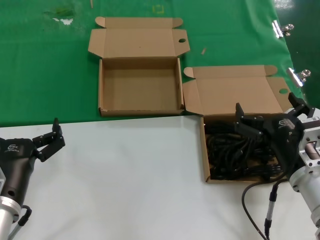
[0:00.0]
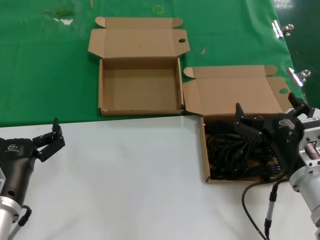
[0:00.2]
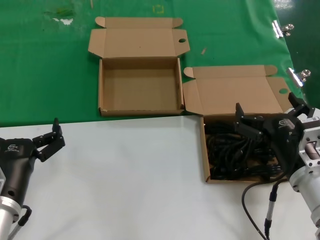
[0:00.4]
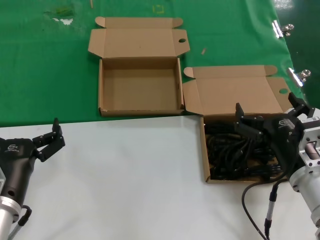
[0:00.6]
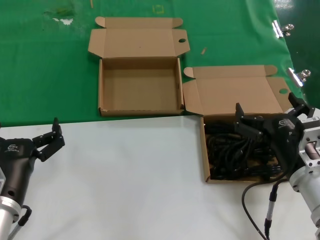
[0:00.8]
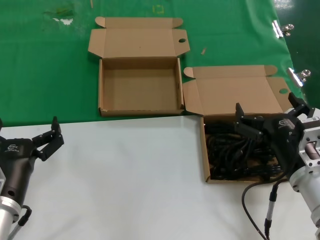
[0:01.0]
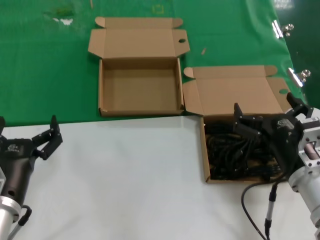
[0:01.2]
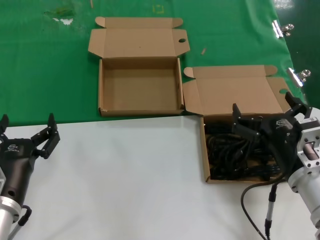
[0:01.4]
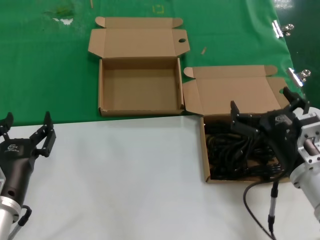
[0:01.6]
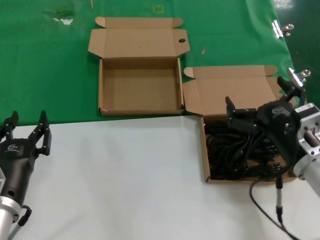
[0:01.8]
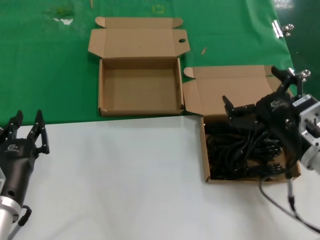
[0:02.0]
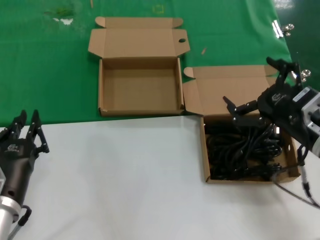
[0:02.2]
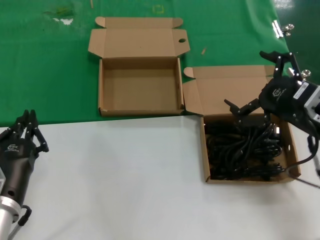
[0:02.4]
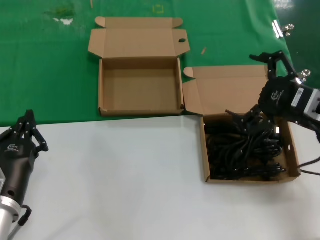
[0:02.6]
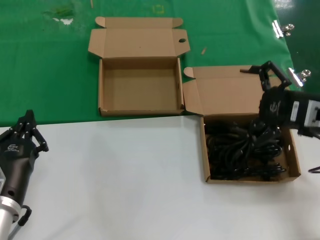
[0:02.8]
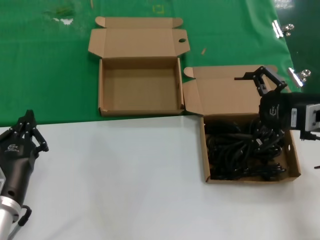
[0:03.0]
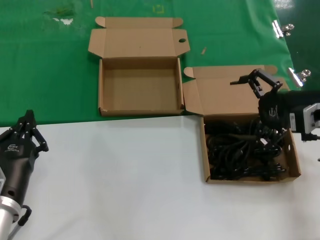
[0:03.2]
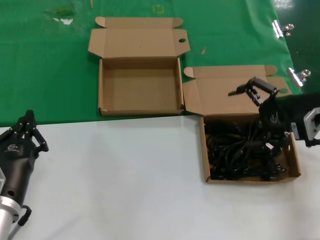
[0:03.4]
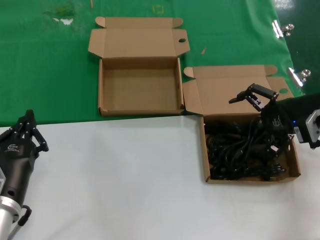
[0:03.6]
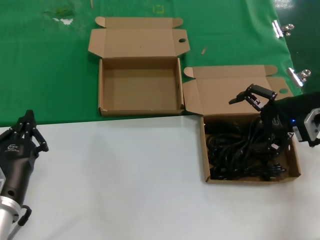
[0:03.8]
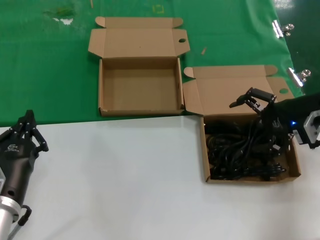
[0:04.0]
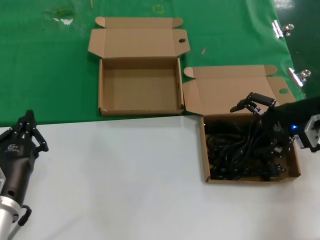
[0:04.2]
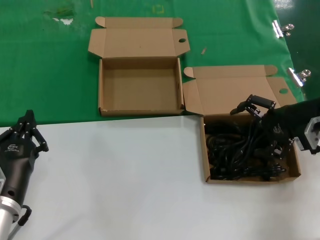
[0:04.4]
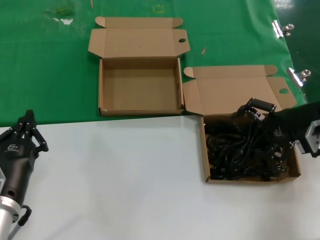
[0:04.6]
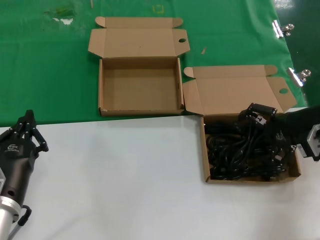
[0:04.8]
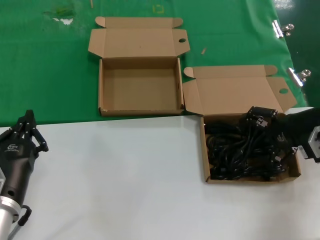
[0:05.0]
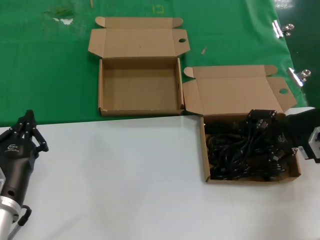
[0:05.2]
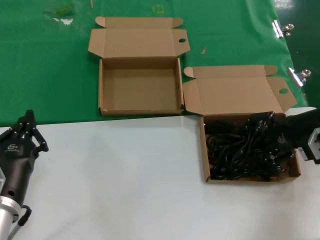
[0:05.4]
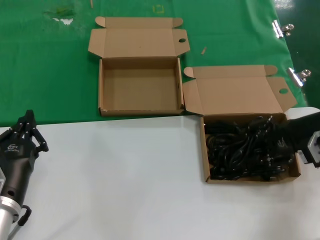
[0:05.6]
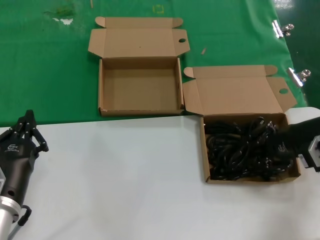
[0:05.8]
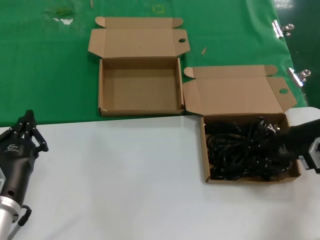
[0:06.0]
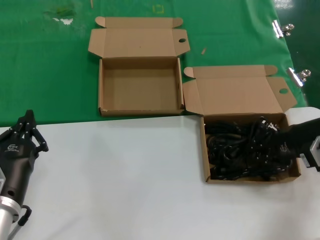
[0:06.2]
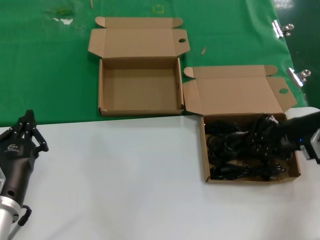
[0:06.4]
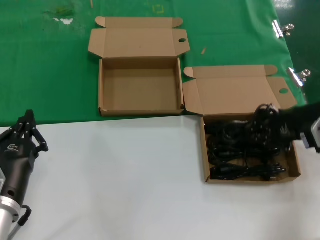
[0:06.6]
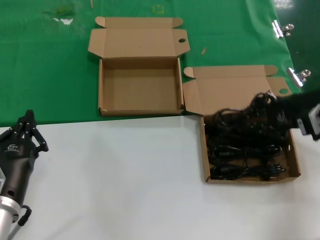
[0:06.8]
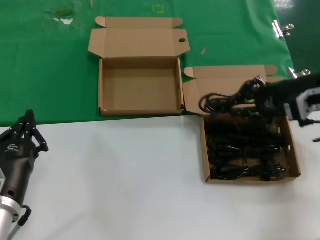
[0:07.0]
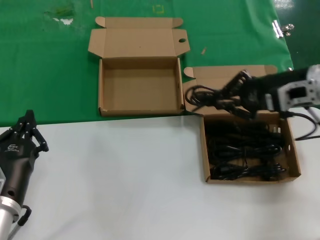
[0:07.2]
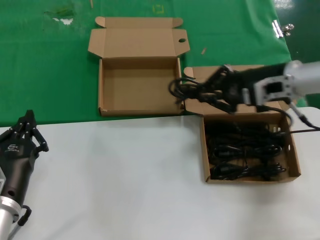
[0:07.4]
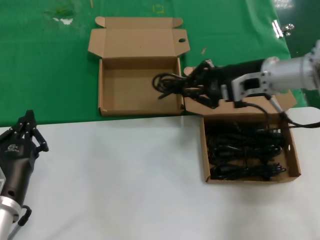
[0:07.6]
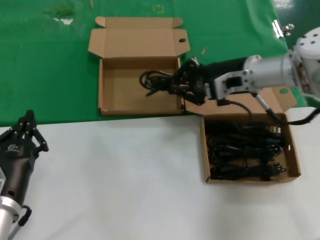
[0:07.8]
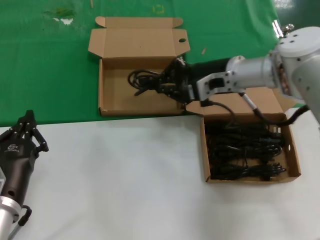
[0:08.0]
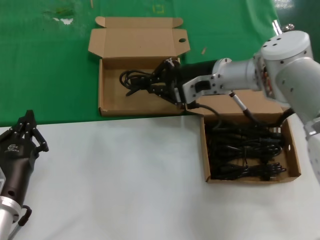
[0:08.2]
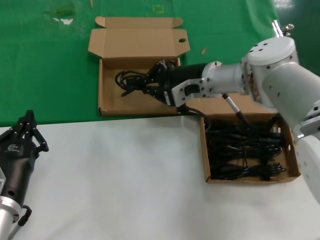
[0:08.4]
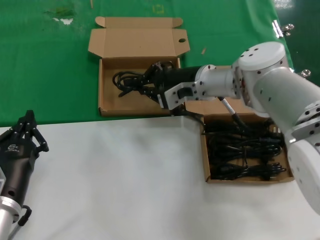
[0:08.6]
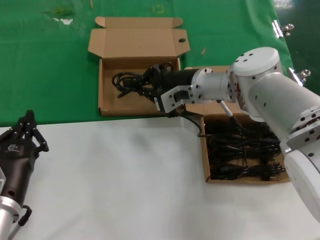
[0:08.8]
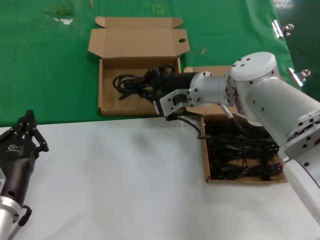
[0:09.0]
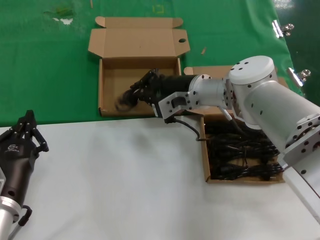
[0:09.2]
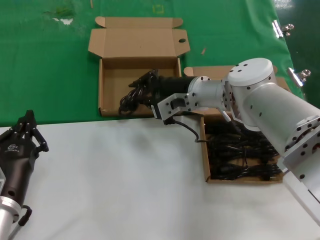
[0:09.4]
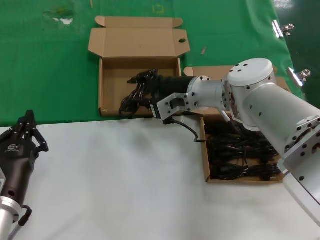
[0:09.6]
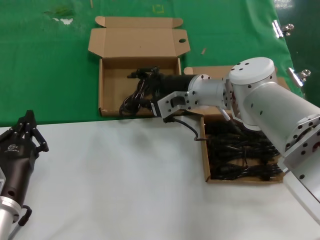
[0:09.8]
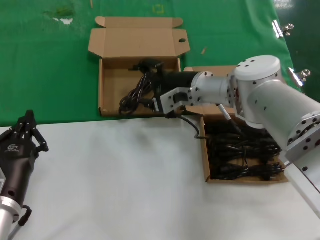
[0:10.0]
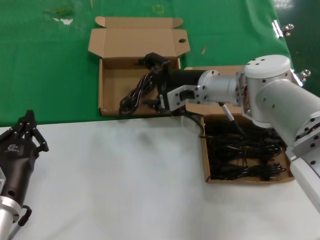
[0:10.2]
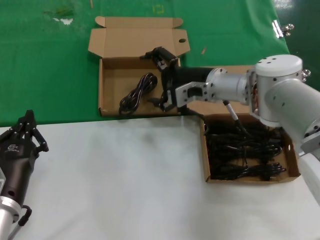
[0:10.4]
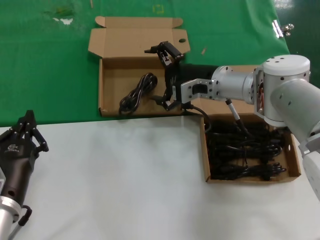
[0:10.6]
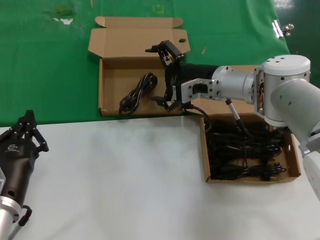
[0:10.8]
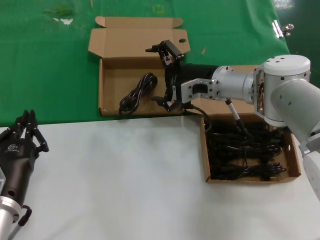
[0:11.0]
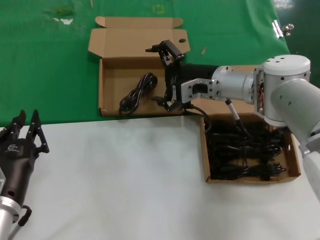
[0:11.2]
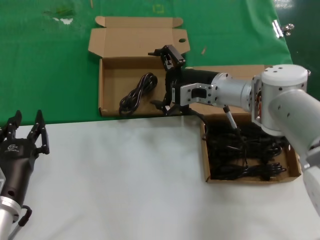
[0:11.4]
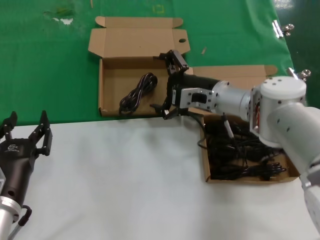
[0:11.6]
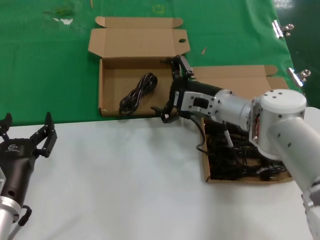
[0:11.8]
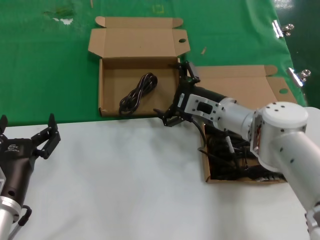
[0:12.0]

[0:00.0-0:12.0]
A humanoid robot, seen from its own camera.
Task of the whole recording: take the parts from the box containing them and put them into an empty box.
Step, 0:00.0 to 0:06.0: Grasp the data cable.
Step, 0:06.2 to 0:09.2: Place the data cable in the another box.
0:00.0 to 0:01.6: The two hands keep their place.
0:01.6 to 0:03.0: The right hand goes roughly 20 cm upward, to the right and forward.
0:03.0 to 0:04.4: The right hand heads forward, covering some 10 cm.
0:04.4 to 0:06.0: There are only small adjustments of the hands.
0:06.0 to 0:07.6: The right hand goes some 15 cm to the left, upward and forward.
0:07.6 to 0:09.0: The right hand heads to the left, covering approximately 15 cm.
0:09.0 to 0:10.4: There are only small adjustments of the hands.
0:10.4 to 0:12.0: The right hand travels downward by about 5 cm.

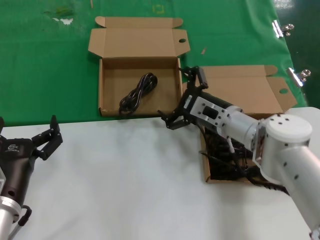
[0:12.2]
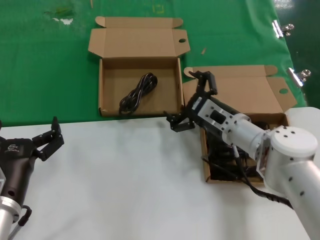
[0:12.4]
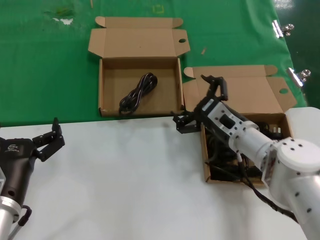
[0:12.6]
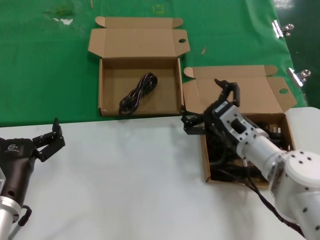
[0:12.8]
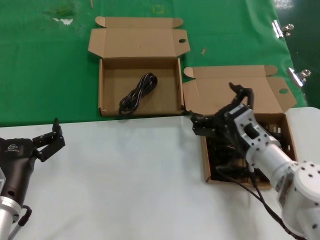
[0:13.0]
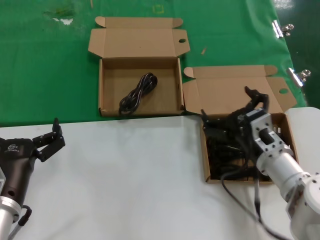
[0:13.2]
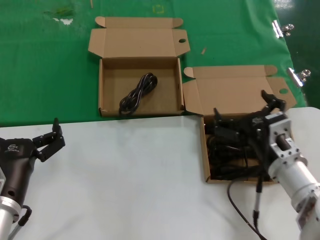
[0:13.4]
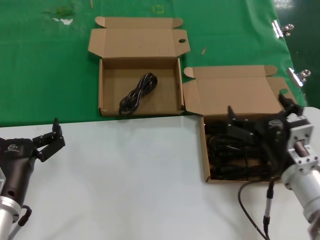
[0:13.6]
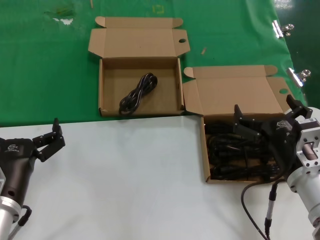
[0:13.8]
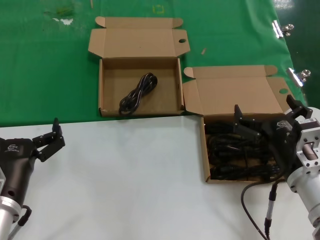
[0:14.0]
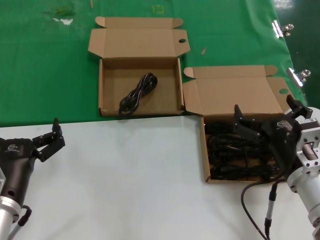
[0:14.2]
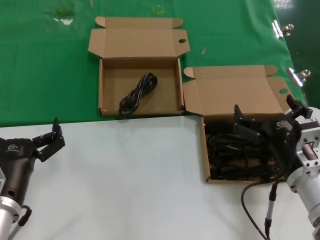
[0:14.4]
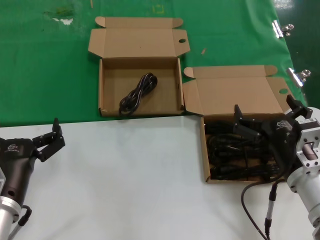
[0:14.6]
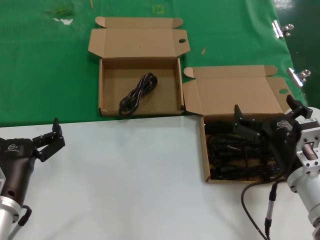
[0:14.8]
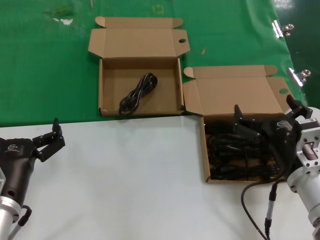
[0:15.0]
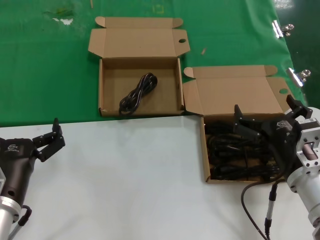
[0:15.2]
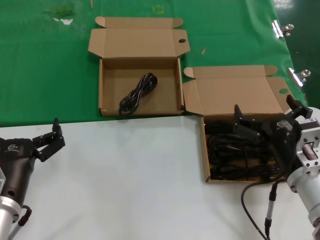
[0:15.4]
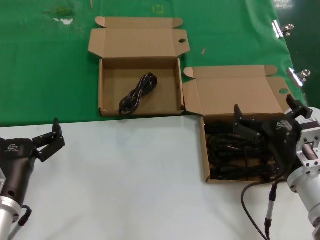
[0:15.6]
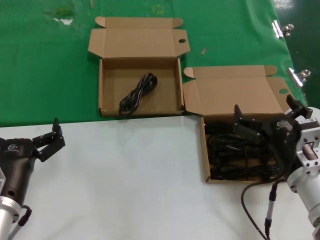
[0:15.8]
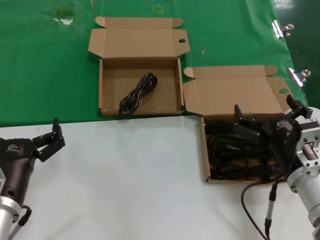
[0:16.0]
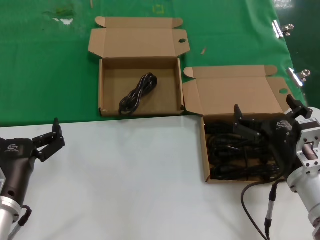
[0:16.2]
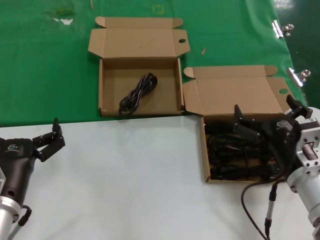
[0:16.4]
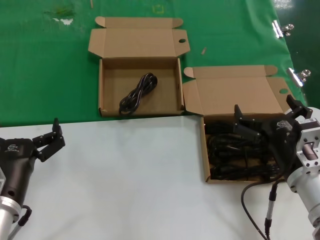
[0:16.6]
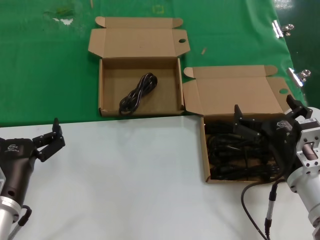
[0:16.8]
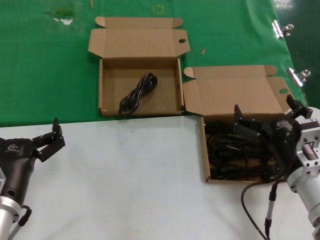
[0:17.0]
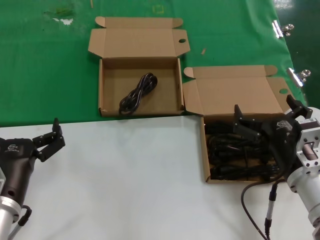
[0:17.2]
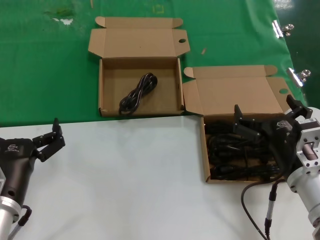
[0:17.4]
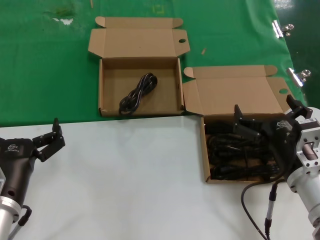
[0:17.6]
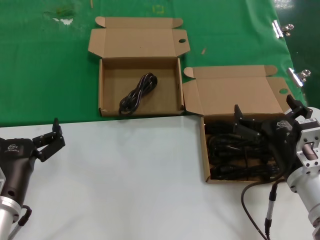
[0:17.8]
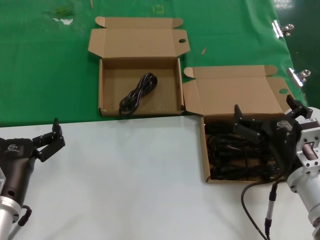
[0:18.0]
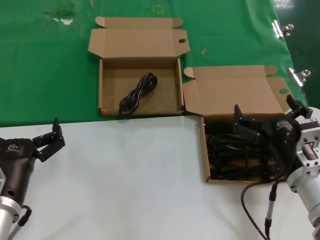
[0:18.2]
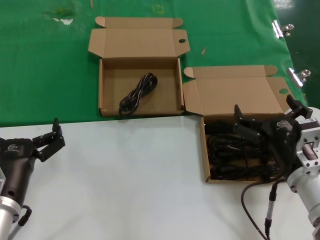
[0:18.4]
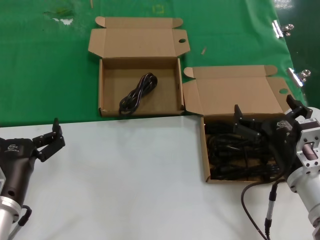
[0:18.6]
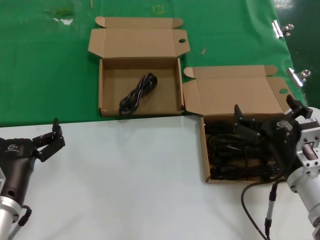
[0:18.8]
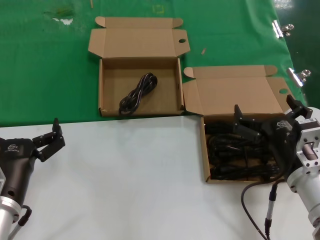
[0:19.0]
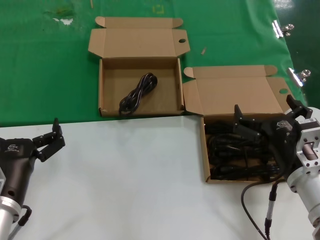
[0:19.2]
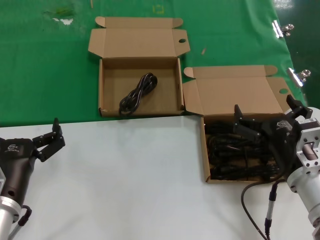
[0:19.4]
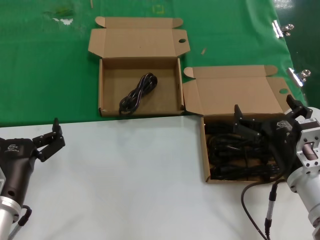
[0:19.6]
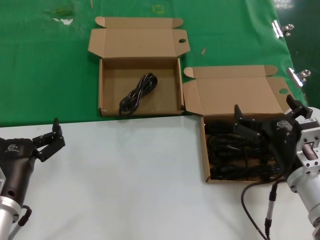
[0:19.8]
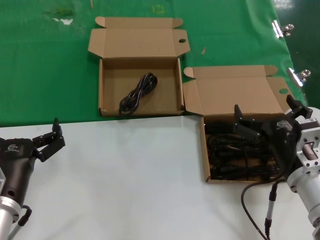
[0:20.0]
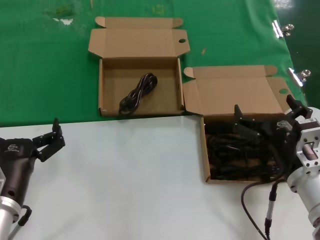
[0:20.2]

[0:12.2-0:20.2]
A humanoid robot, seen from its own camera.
Task of the whole recording: take the parts from the box containing them and put them into an empty box.
0:12.2 to 0:13.8: The right hand travels backward by some 20 cm.
0:13.8 to 0:20.2: The two hands keep their place.
